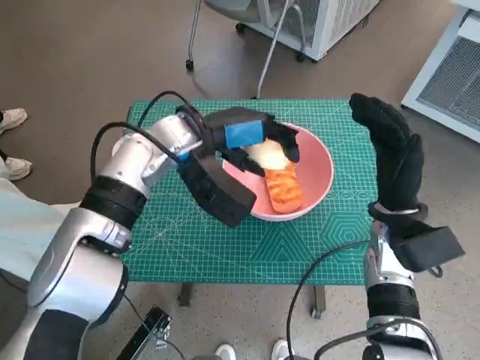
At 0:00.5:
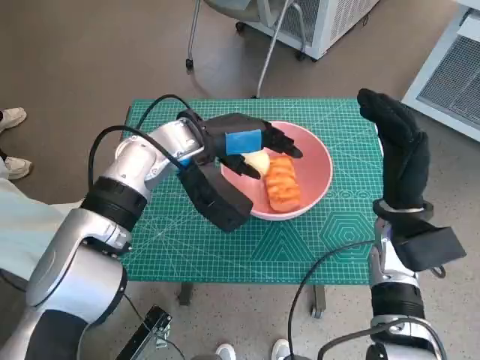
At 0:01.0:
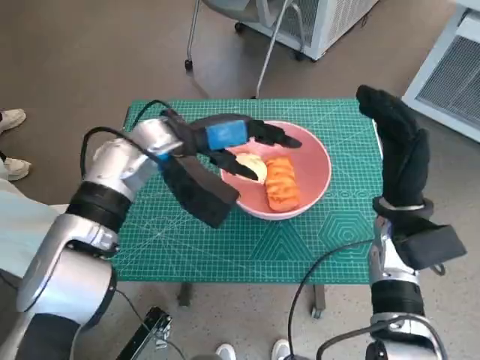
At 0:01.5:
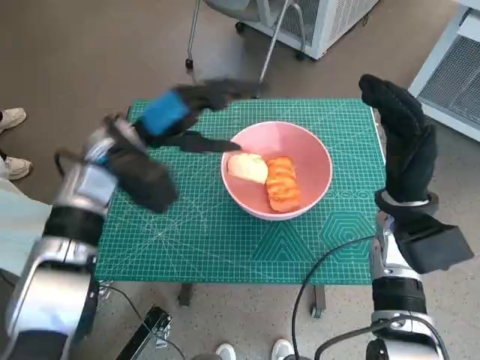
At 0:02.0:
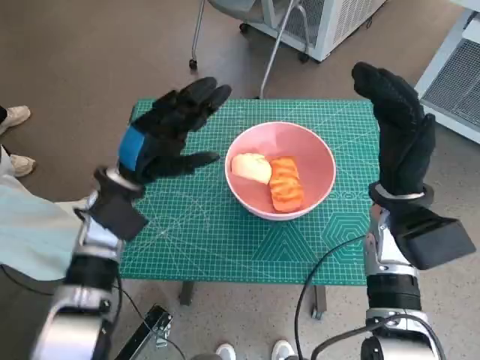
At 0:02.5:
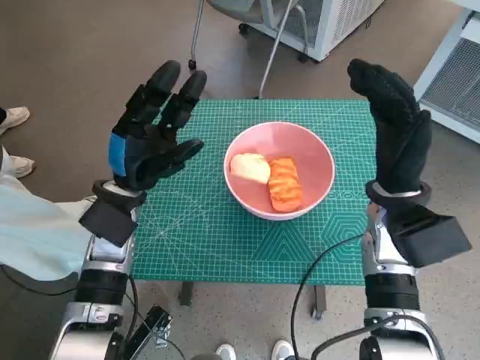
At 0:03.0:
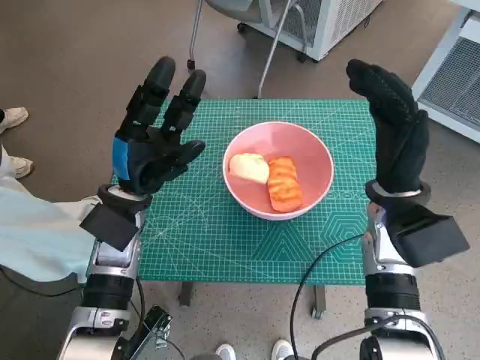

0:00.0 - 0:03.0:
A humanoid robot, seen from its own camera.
Task of the whole recording: Push the bowl to the center of the table and put the bread into the bowl.
0:00.0 - 0:01.5: The left hand goes about 10 cm to the left.
0:01.5 - 0:03.0: The left hand travels downward by about 5 cm.
